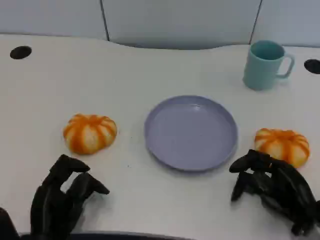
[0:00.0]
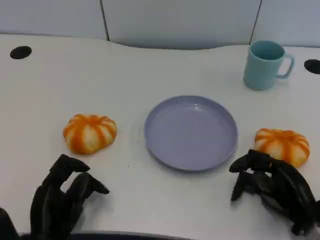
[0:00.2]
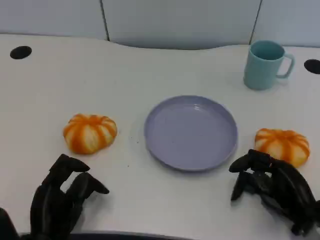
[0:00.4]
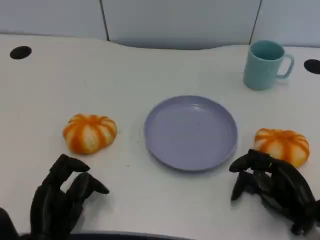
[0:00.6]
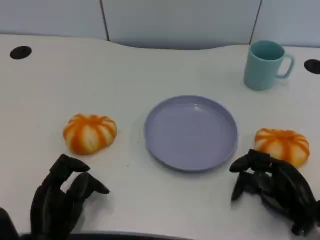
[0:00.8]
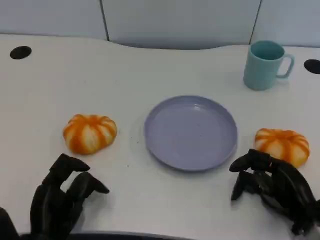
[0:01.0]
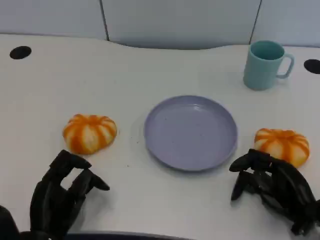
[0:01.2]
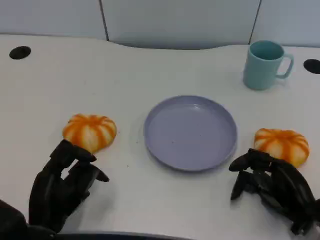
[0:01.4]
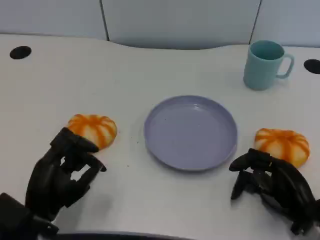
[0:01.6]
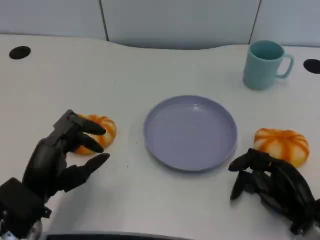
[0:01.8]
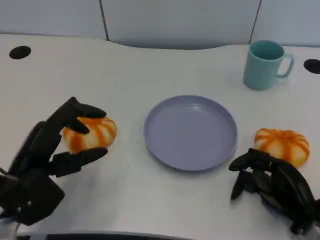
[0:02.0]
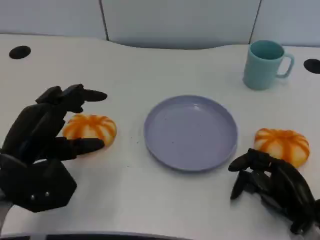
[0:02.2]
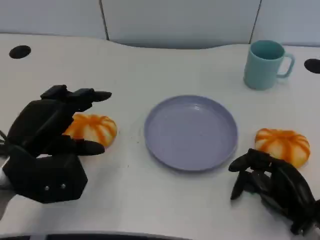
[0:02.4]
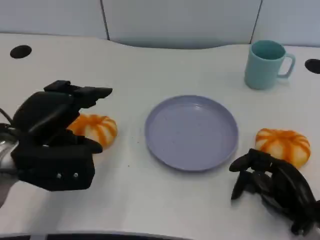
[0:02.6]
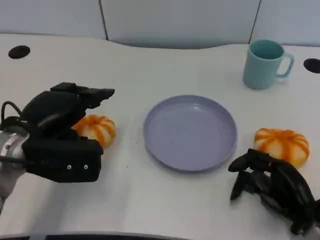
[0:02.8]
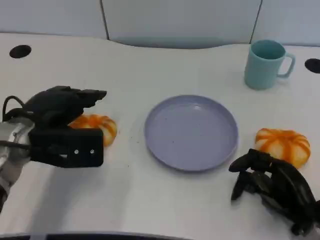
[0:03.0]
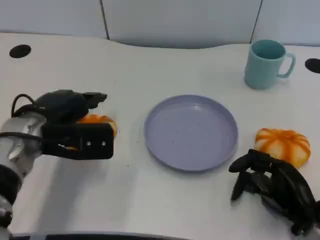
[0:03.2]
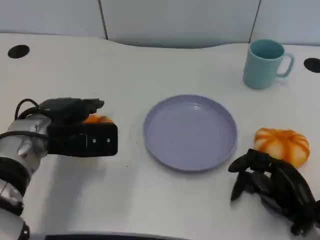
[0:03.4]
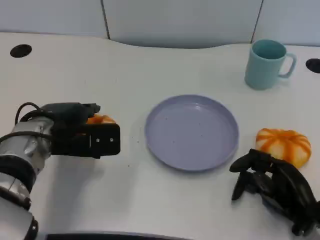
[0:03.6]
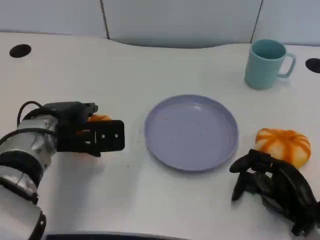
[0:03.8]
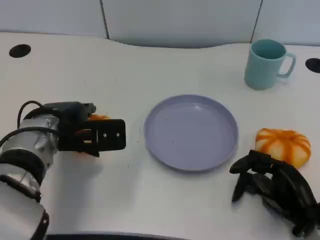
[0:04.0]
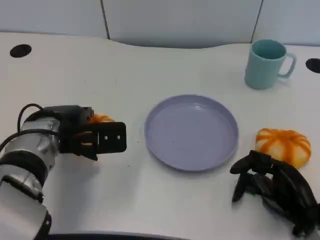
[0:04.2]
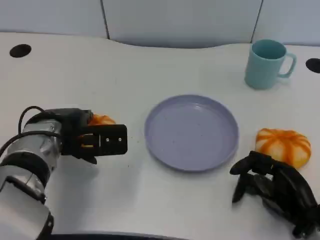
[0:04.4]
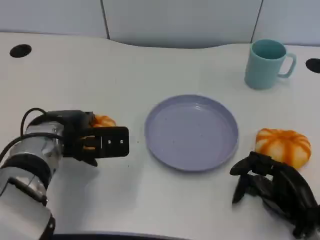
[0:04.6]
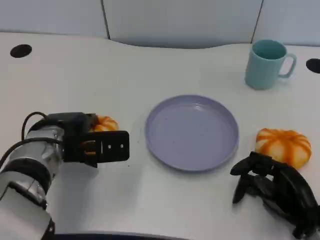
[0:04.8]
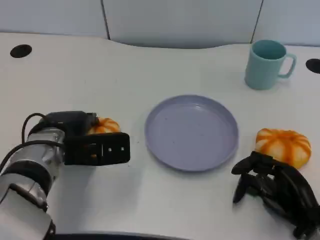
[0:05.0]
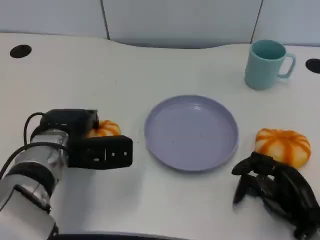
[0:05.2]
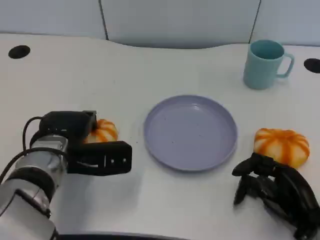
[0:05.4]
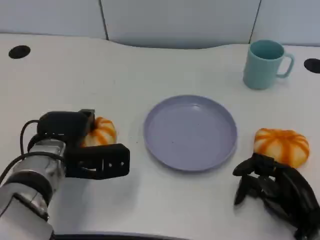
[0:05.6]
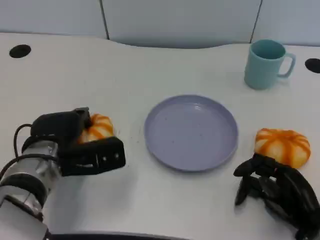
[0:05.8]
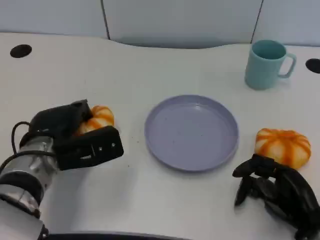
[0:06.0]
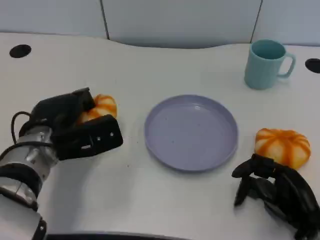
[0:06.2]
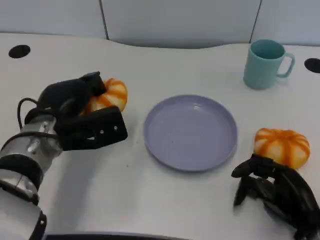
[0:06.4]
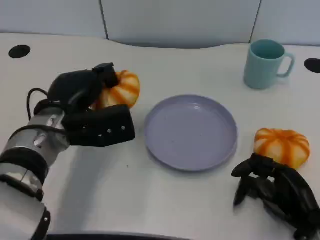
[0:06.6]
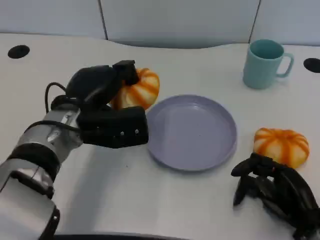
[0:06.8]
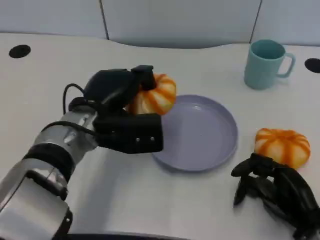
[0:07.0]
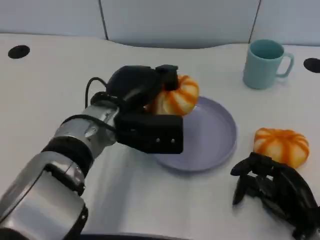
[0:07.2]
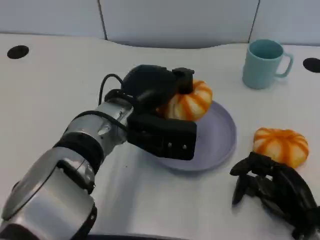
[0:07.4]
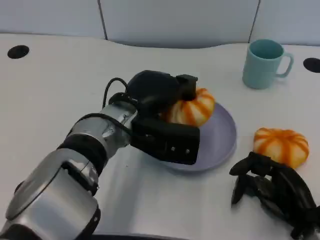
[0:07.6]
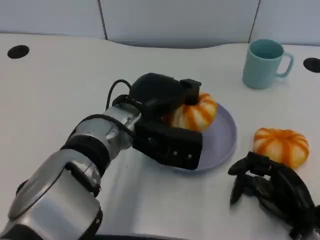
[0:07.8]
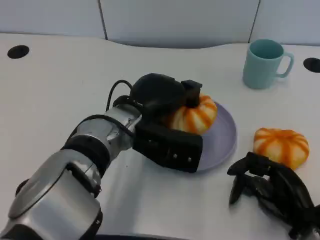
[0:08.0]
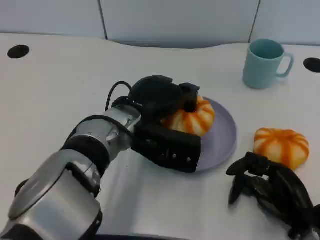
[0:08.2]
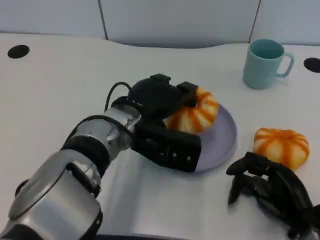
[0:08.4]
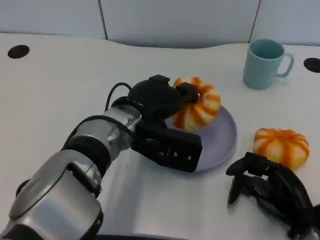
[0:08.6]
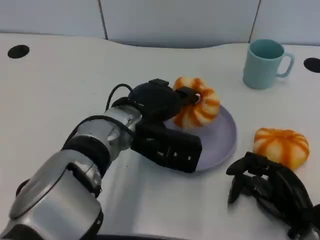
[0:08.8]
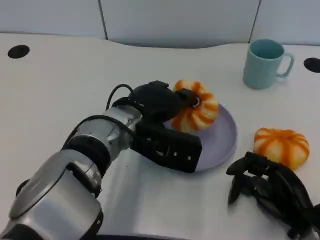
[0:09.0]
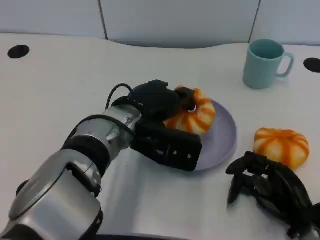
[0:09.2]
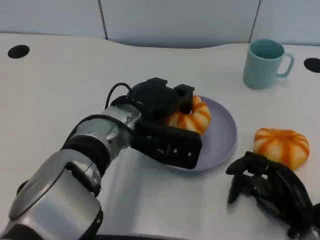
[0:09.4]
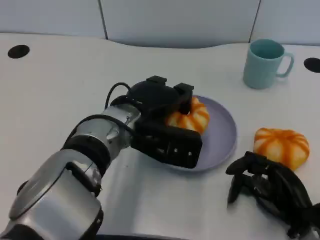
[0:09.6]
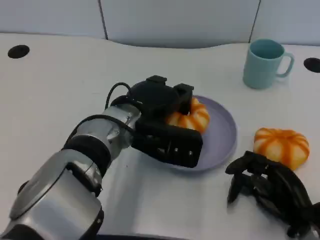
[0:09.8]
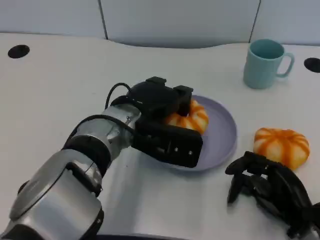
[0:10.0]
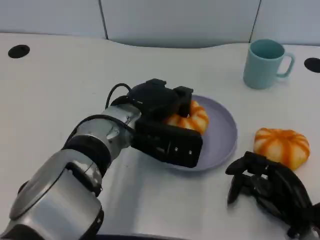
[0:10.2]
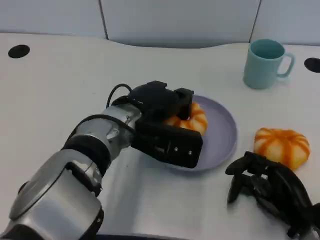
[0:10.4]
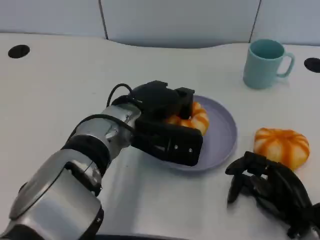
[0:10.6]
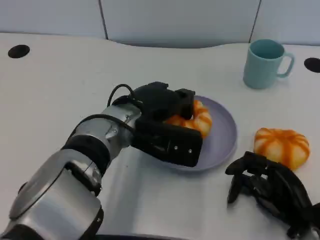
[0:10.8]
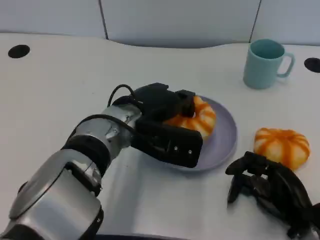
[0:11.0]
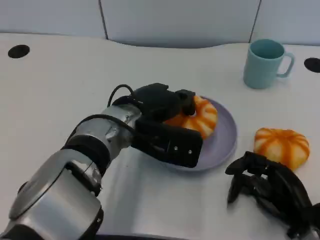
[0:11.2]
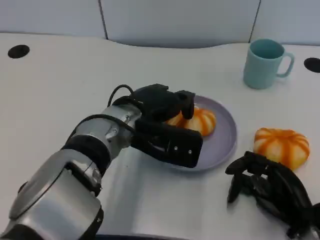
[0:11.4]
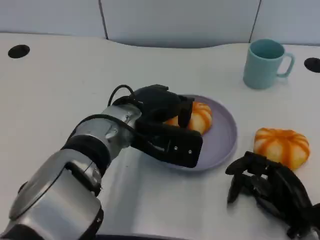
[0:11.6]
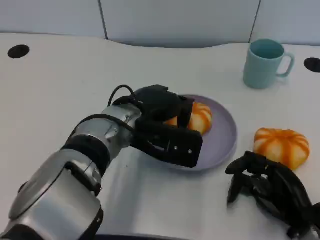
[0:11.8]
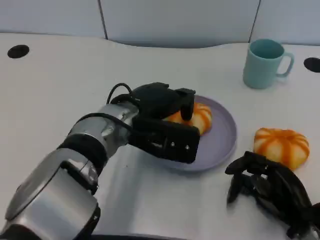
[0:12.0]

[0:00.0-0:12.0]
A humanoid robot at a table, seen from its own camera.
Task of the whole recording: Grasp the bread from the table and place it into the plate.
0:01.6 to 0:03.0: The left hand travels forward and upward by approximately 15 cm.
0:06.0 to 0:07.6: The left hand travels to the right and upward by approximately 15 cm.
0:07.6 to 0:09.0: There are only small adjustments of the hands.
0:09.0 to 0:10.4: Both hands stay about where they are.
0:10.4 to 0:12.0: There are only small adjustments of the hands.

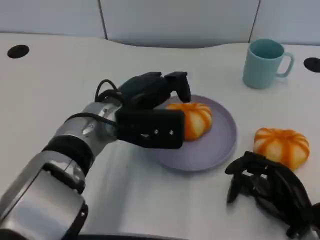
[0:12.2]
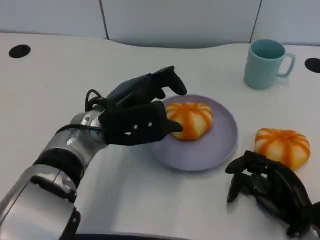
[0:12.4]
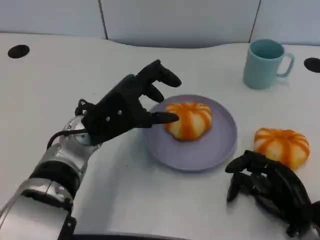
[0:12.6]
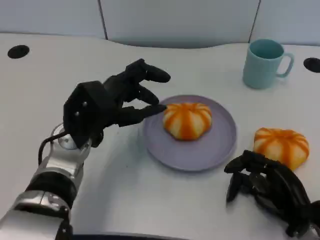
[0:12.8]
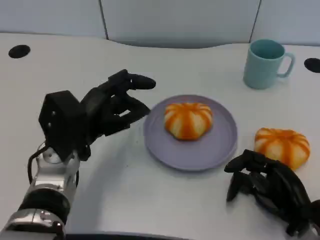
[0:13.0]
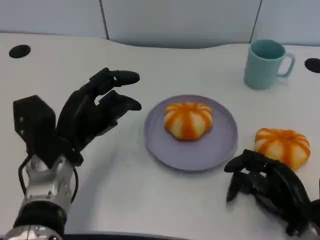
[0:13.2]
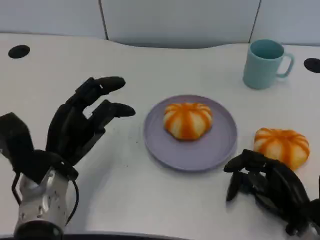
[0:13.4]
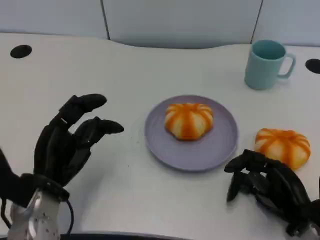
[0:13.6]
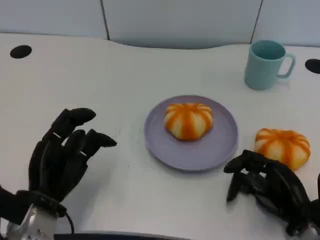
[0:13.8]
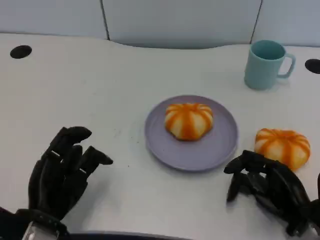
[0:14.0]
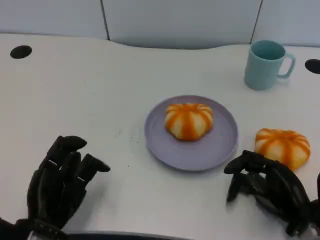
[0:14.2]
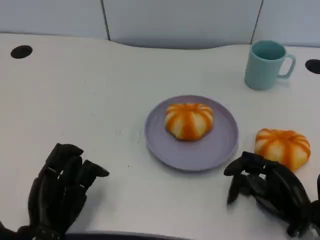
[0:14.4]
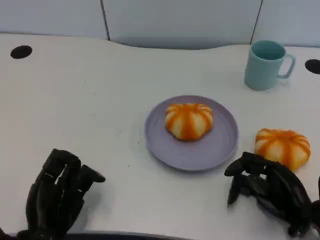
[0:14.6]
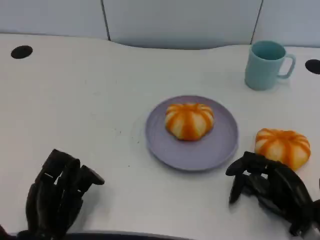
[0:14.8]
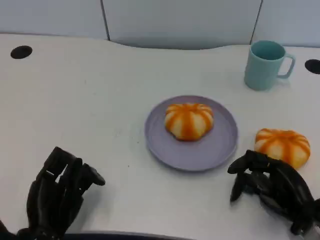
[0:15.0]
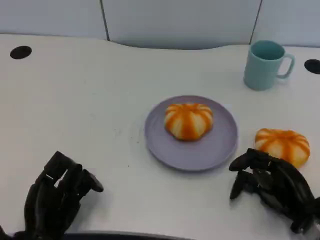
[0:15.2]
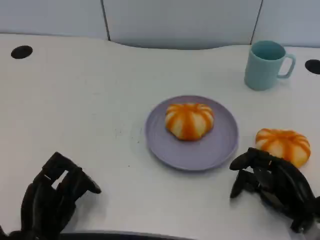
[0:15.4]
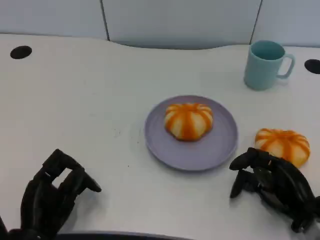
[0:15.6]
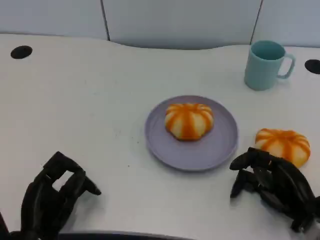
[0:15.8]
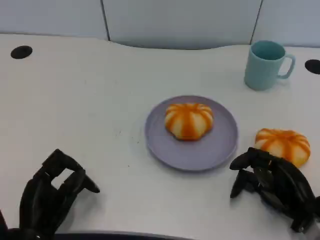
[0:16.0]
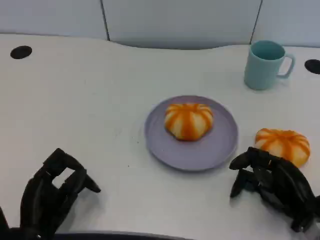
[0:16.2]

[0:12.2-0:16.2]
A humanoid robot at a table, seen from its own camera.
Task of the whole recording: Grasp the bread from the table and place it into the plate.
0:12.2 to 0:13.6: The left hand travels to the left, backward and downward by some 15 cm.
0:13.6 to 0:14.8: The left hand is displaced backward by some 5 cm.
0:14.8 to 0:16.2: The hands move only a little.
